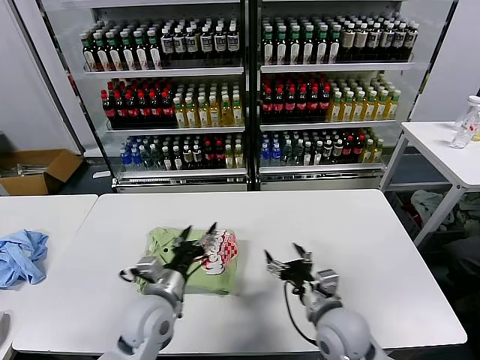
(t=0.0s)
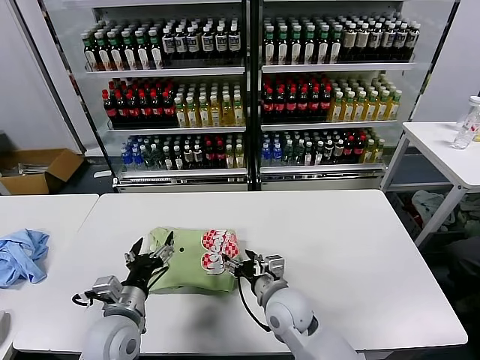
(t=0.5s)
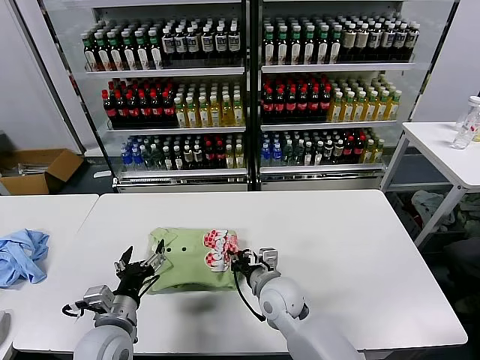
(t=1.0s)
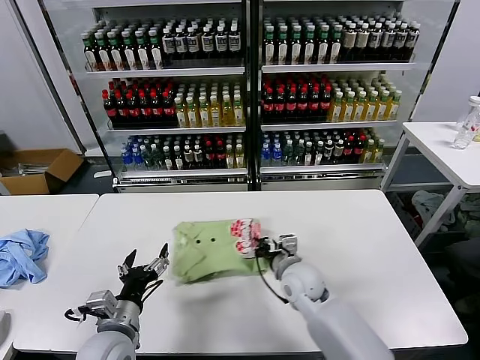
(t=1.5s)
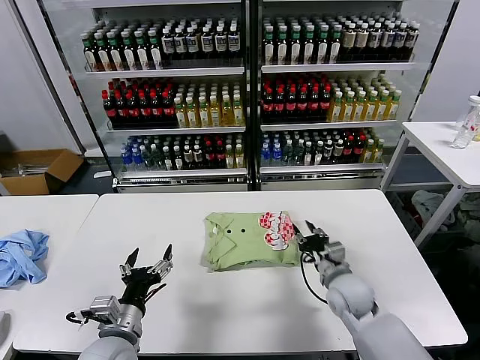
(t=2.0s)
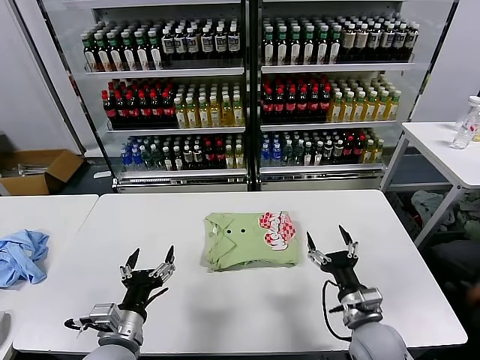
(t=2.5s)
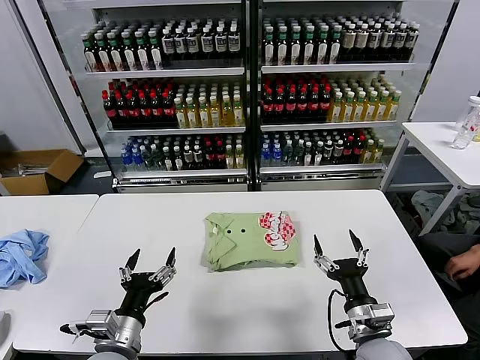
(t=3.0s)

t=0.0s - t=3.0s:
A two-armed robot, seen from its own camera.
Task of the whole recording: fold and organize the clothes.
Step, t=0.0s - t=2.0s: Drag the clothes to the center of the table.
t=0.0s - t=1.5s: The right gripper shifts approximately 15 cm forward and to the left, and closes its fingers; the left gripper travels to the left and backward by approximately 10 cm.
t=1.5s - t=3.0s: The right gripper shifts roughly 20 cm backward and to the right, and opens its fingers.
